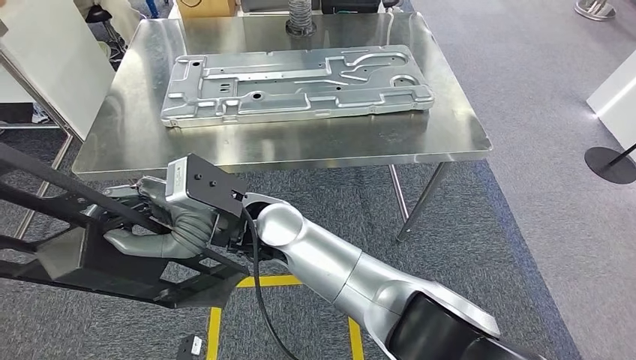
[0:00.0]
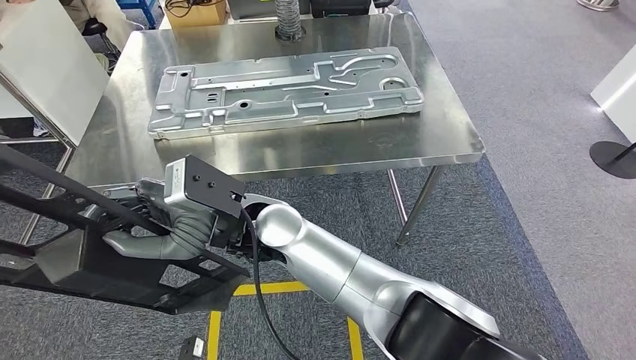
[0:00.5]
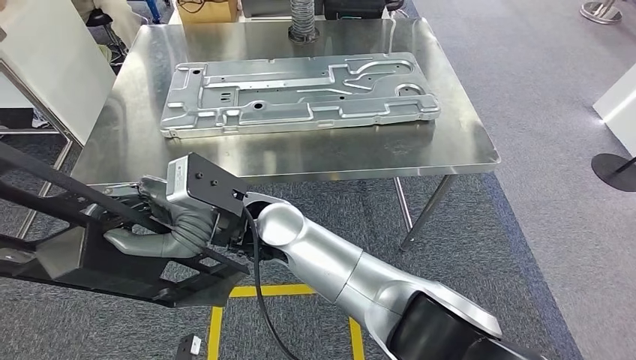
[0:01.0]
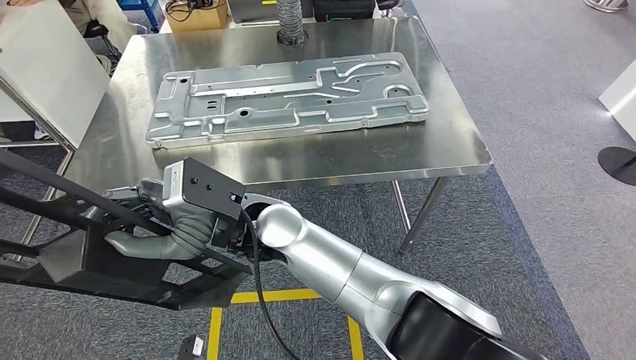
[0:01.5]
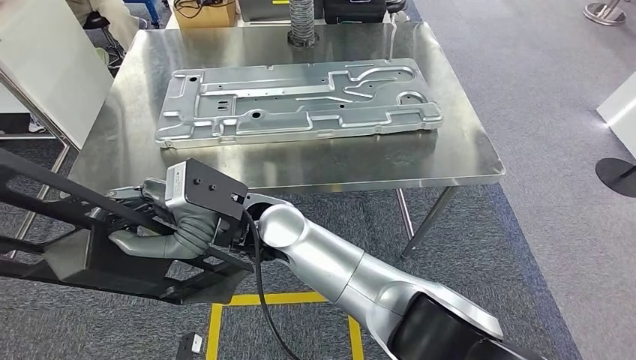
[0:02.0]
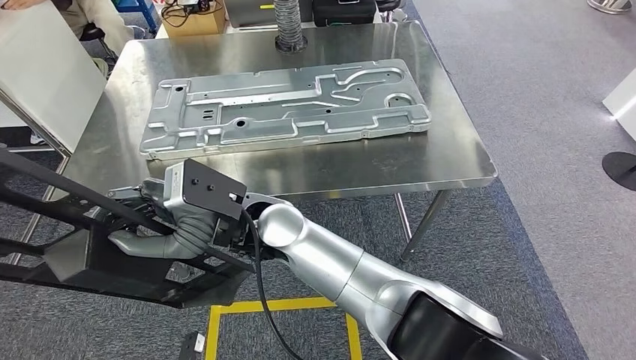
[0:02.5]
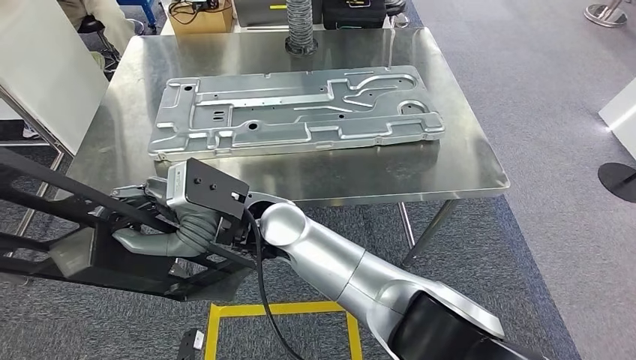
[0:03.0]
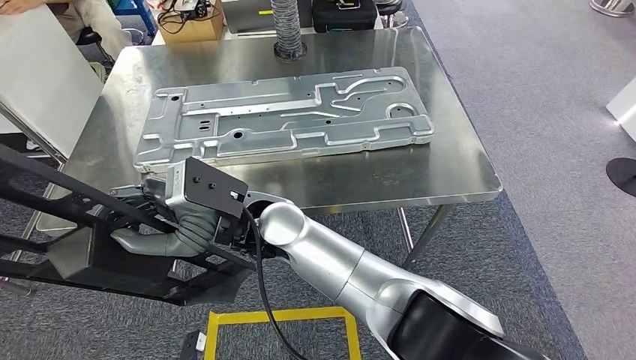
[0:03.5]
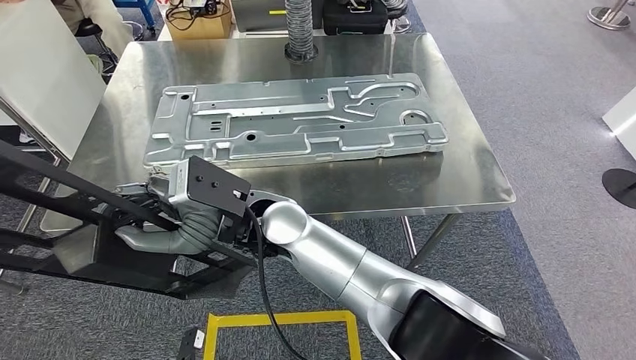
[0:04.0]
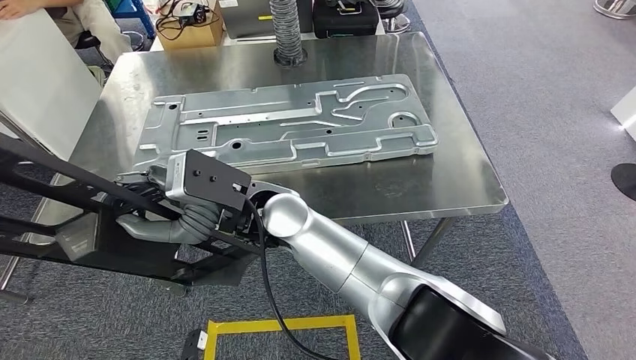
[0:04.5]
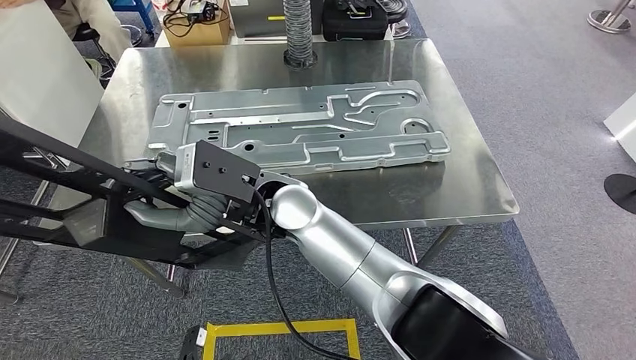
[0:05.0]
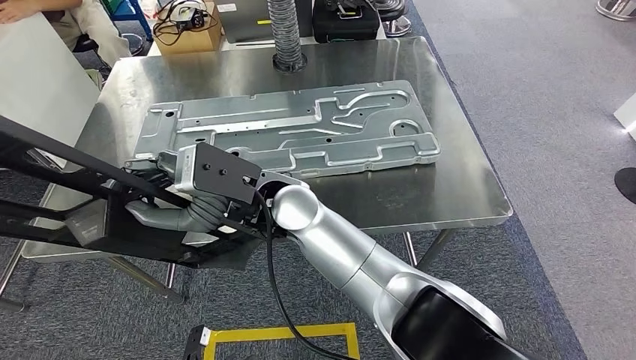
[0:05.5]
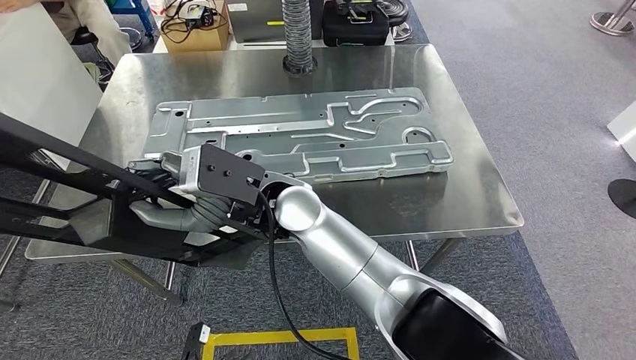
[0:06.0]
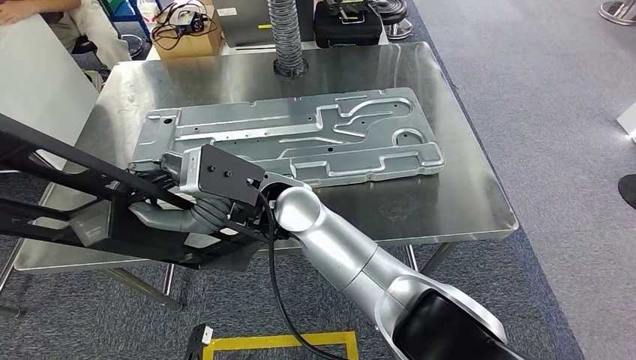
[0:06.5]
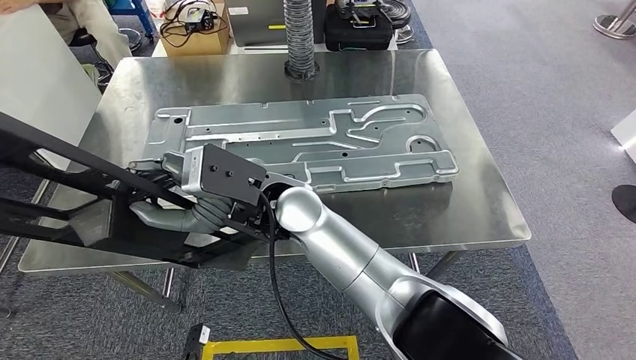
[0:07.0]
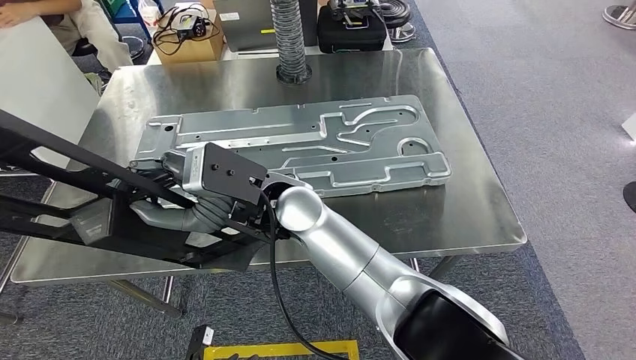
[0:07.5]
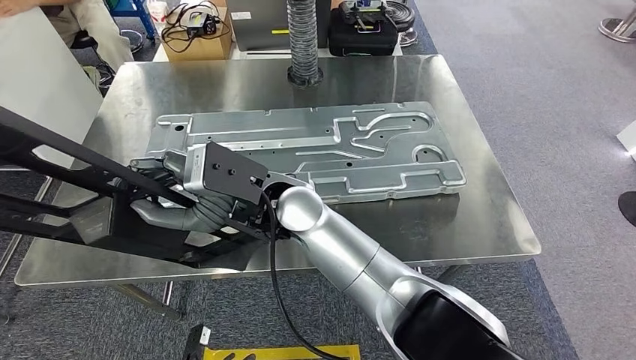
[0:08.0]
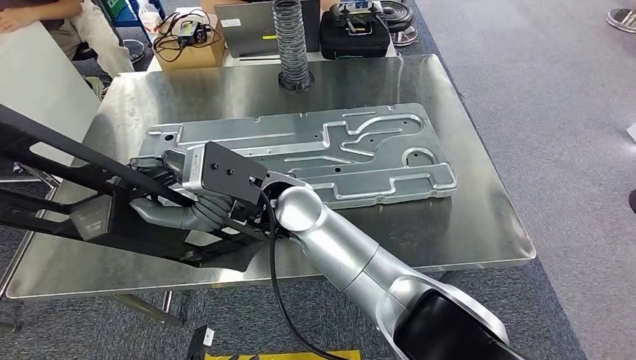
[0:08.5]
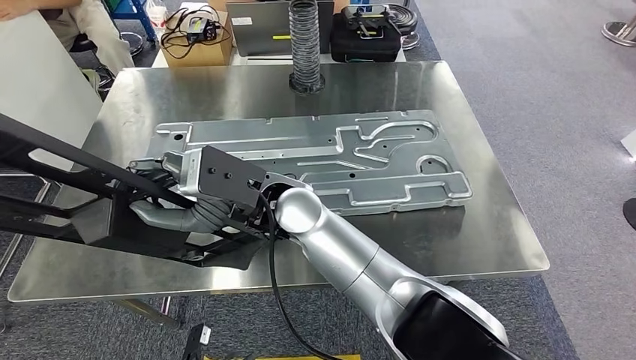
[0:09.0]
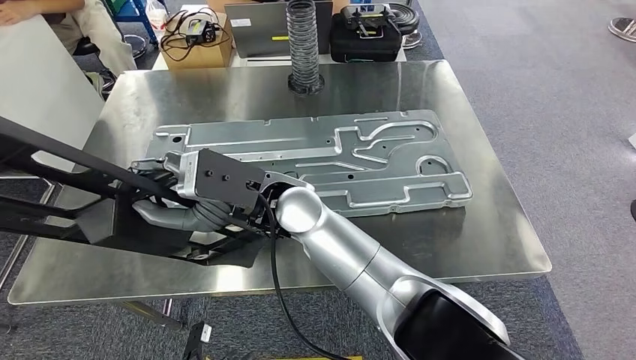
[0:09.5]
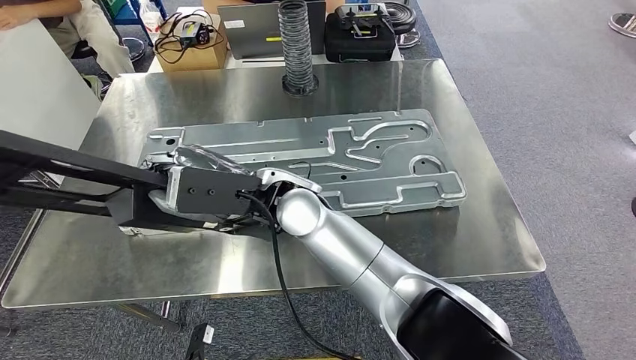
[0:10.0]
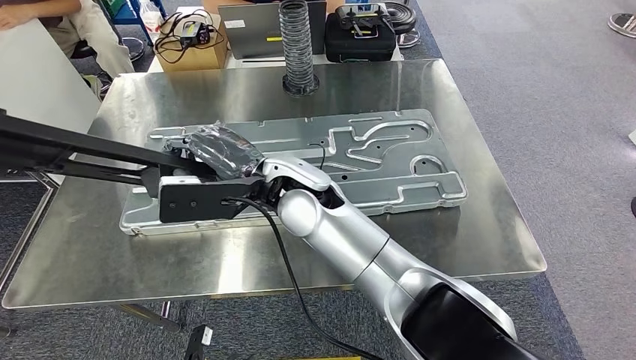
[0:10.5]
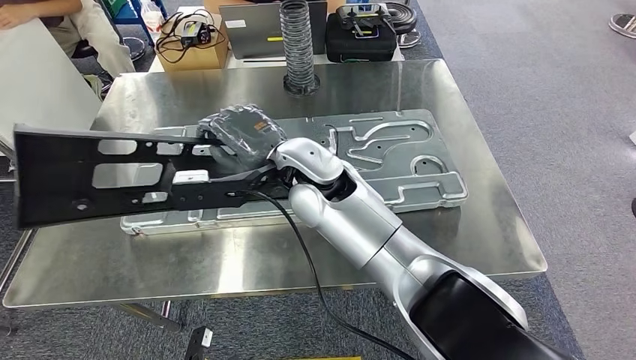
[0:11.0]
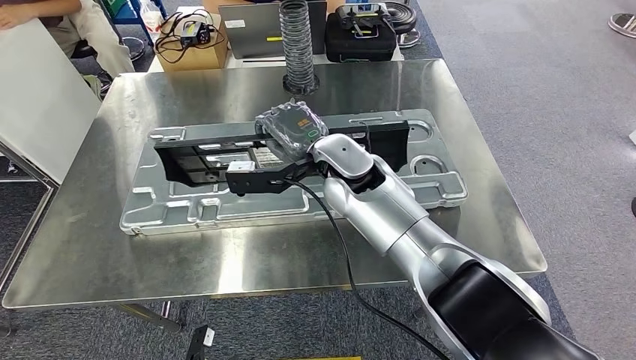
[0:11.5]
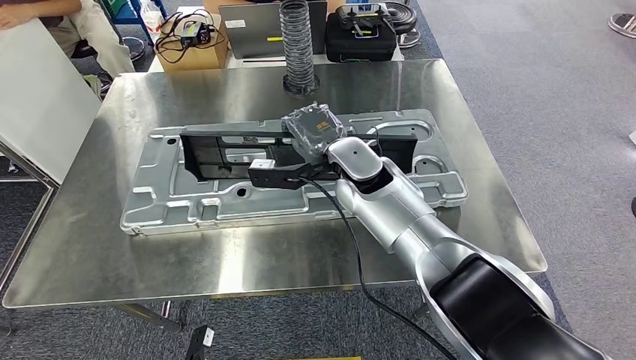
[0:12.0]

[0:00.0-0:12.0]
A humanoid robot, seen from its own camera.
Step, 0:00.0 to 0:05.0: Move the small component to the workbench.

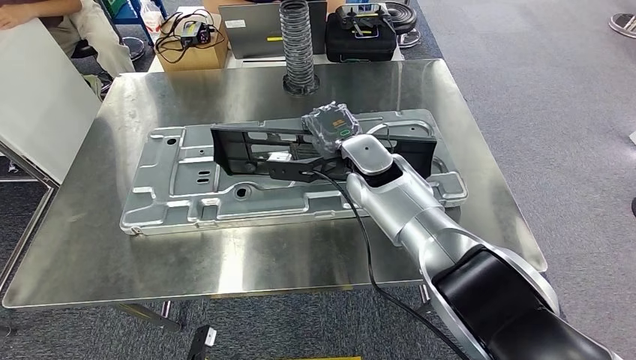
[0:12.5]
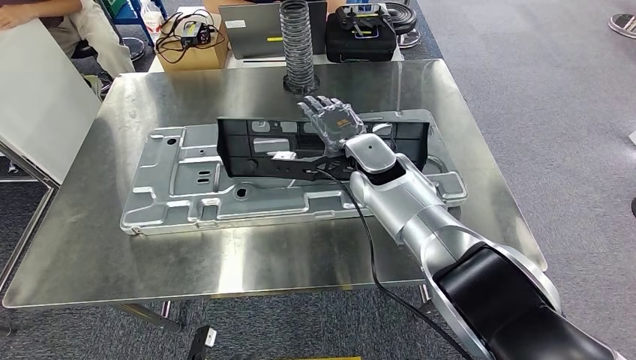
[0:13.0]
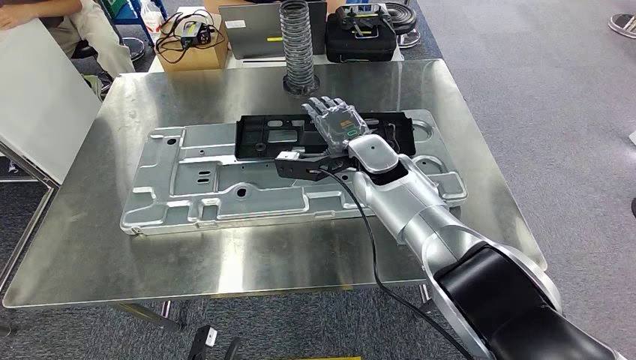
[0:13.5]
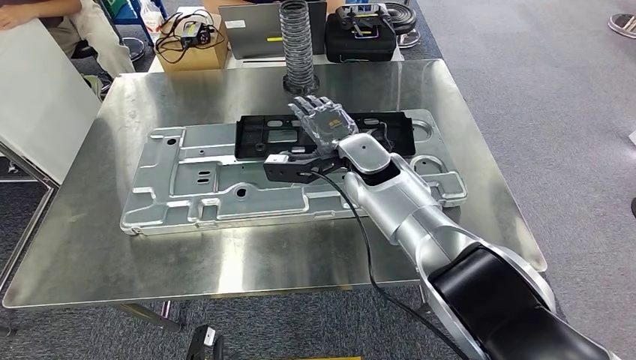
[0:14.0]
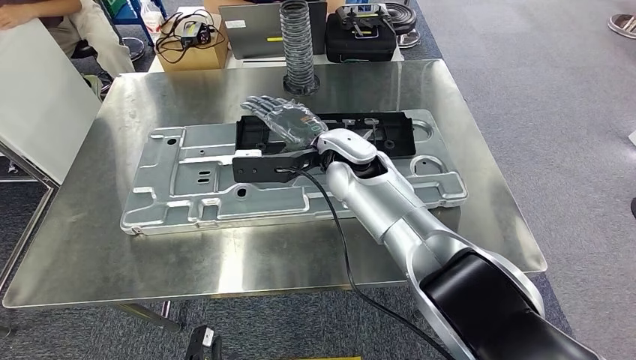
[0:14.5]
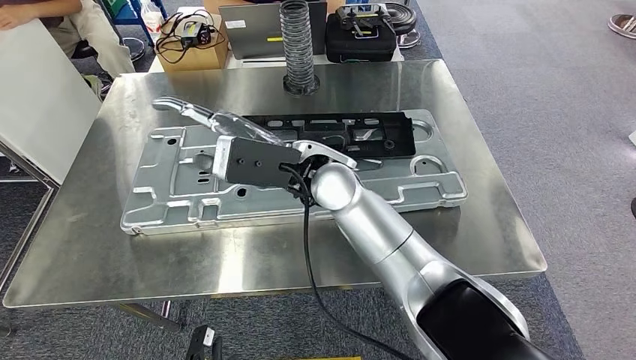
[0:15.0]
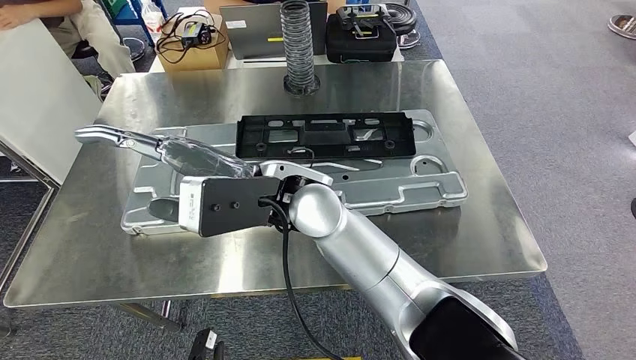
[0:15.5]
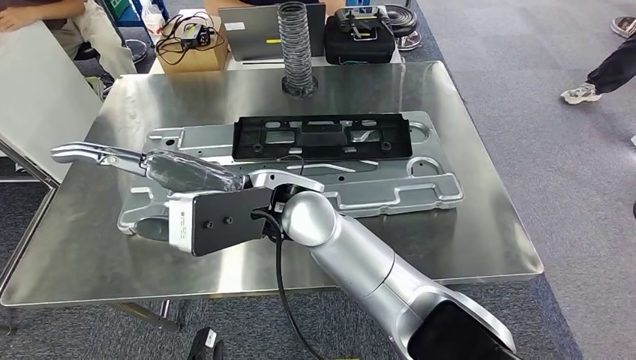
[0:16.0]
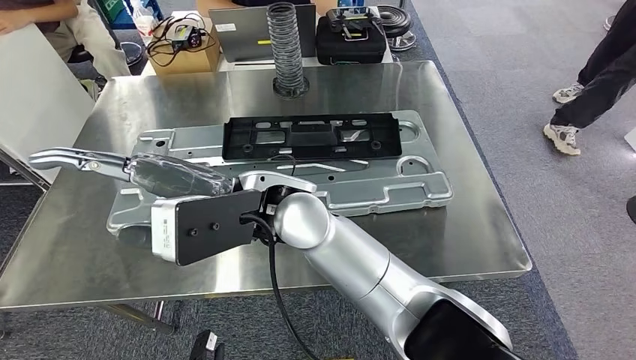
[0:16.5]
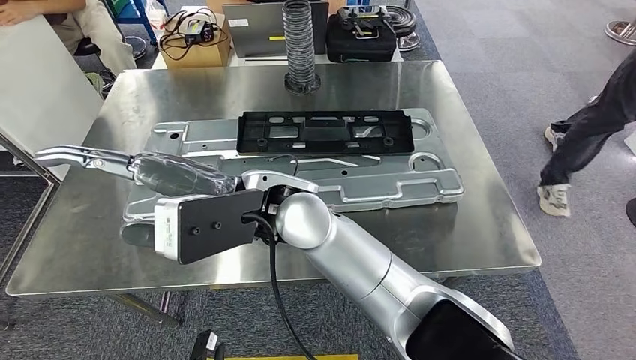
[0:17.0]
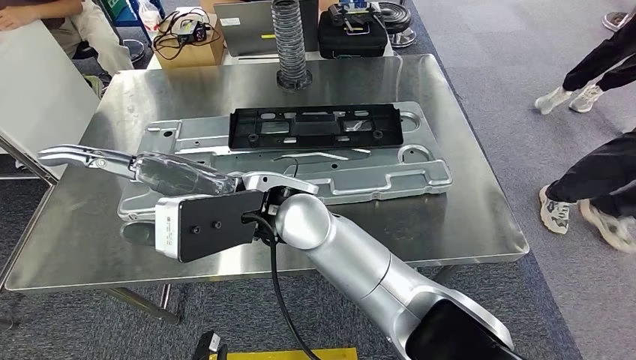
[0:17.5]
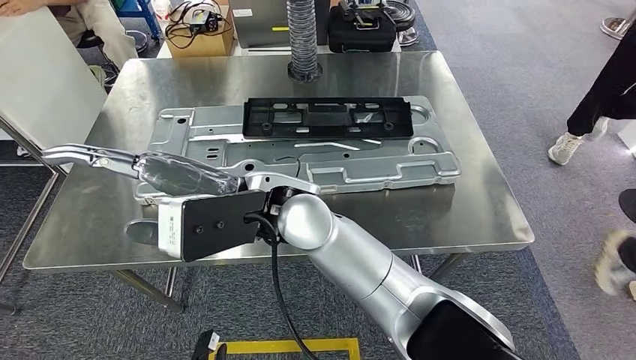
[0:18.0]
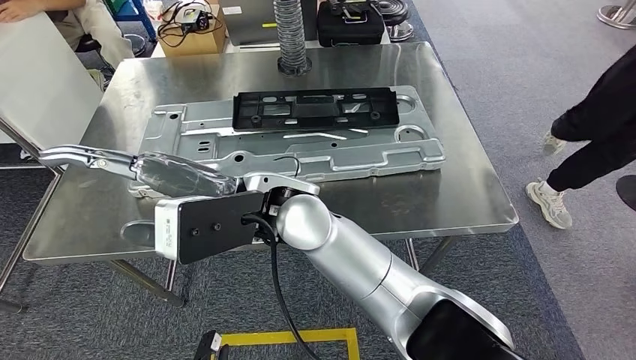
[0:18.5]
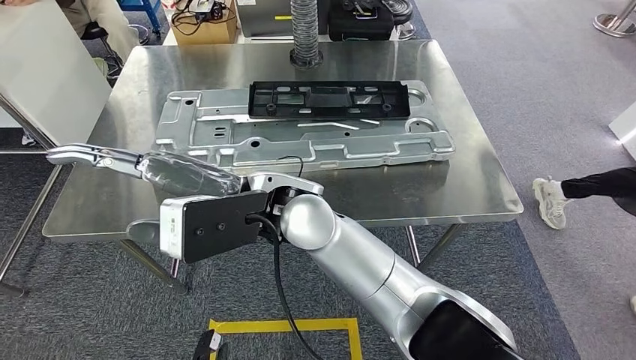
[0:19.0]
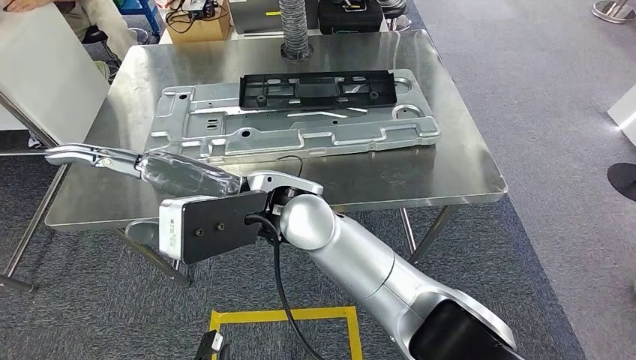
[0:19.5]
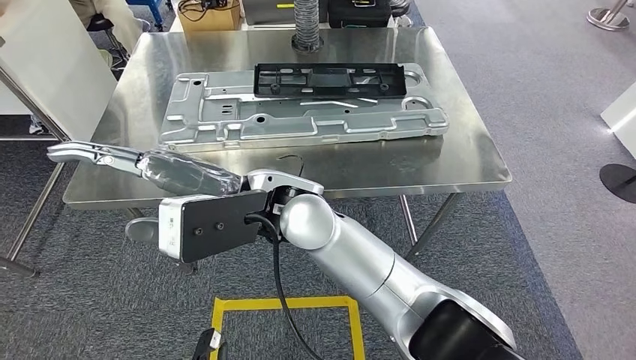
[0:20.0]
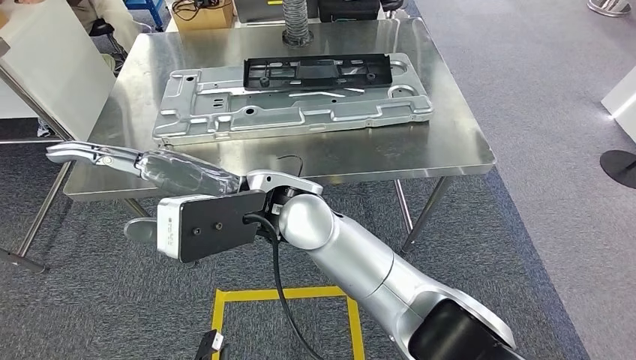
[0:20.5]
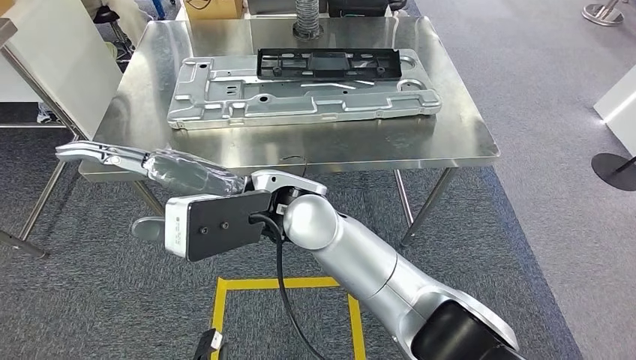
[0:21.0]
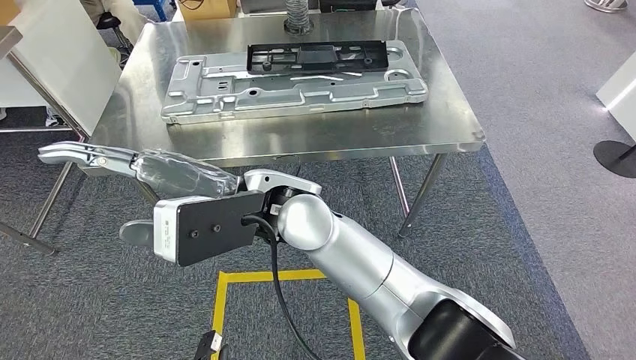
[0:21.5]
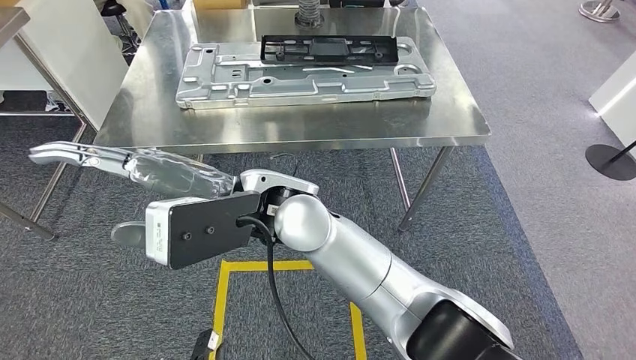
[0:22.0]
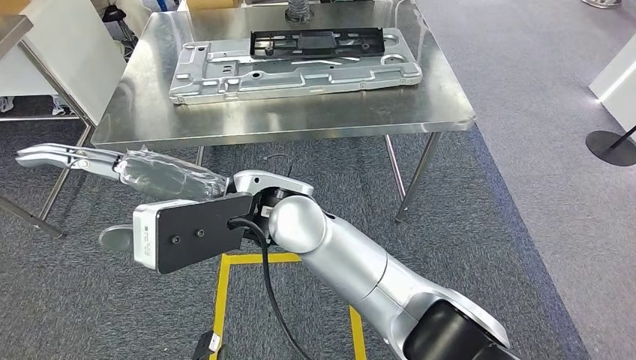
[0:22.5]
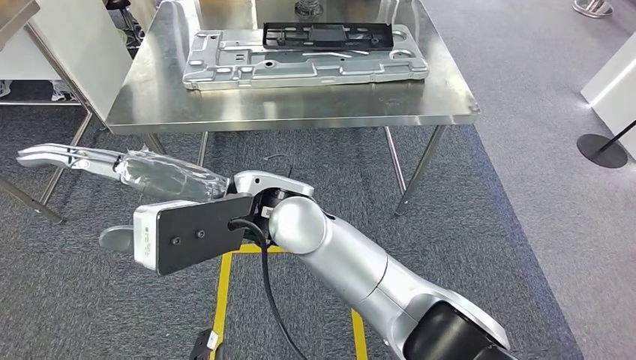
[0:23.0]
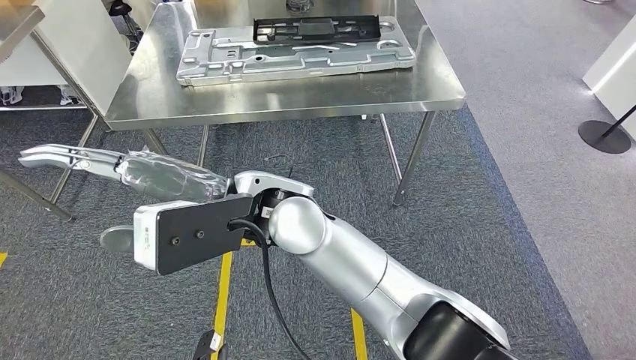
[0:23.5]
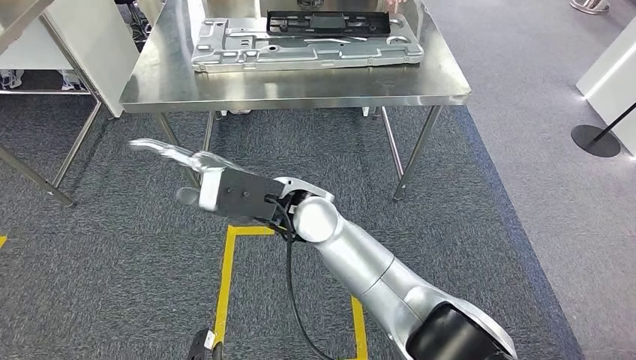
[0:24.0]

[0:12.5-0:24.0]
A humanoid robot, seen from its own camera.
Step, 0:12.5 to 0:15.0: Insert the small component into the corresponding slot on the workbench.
